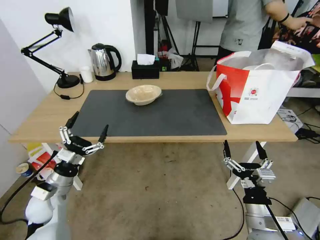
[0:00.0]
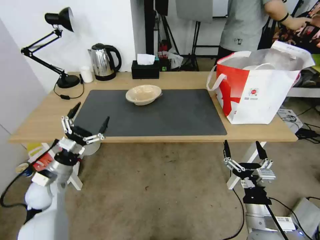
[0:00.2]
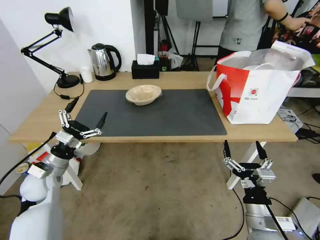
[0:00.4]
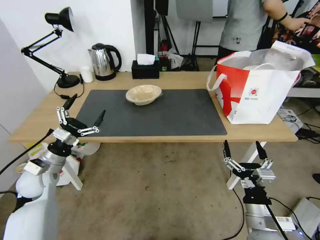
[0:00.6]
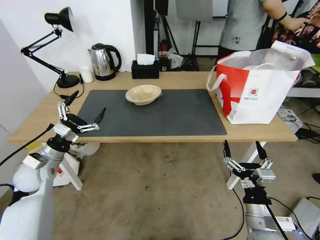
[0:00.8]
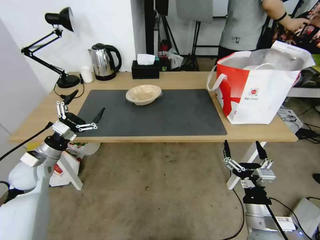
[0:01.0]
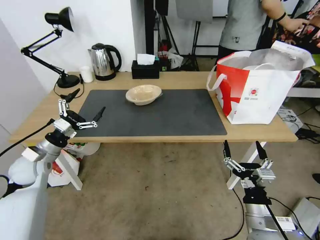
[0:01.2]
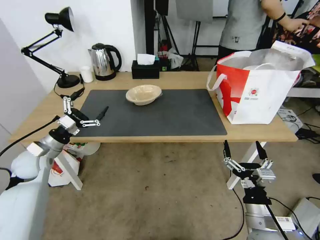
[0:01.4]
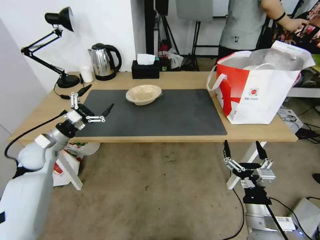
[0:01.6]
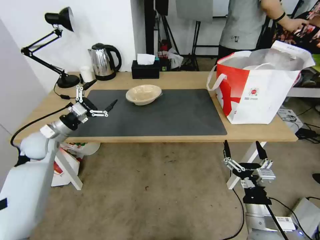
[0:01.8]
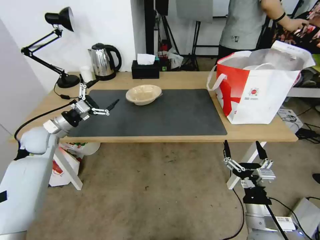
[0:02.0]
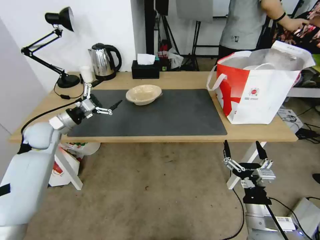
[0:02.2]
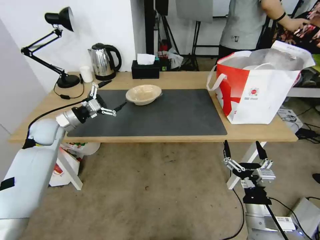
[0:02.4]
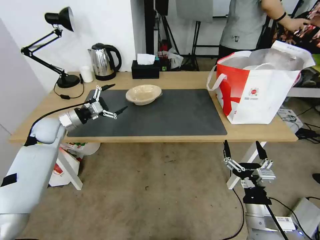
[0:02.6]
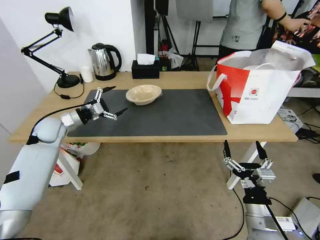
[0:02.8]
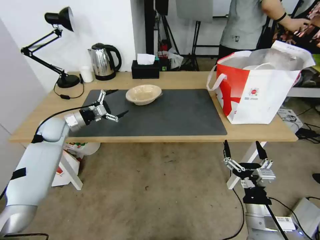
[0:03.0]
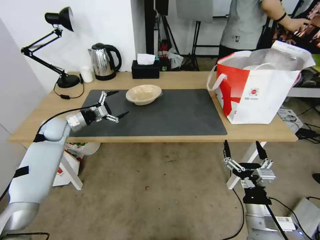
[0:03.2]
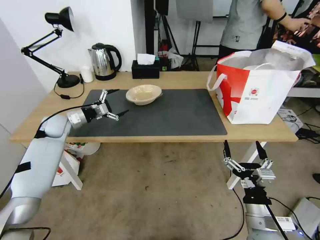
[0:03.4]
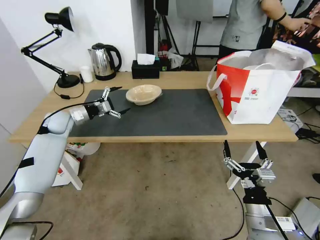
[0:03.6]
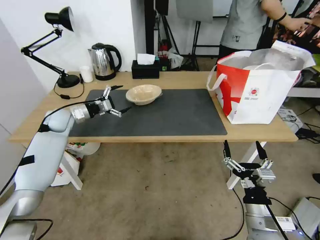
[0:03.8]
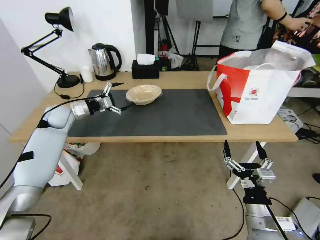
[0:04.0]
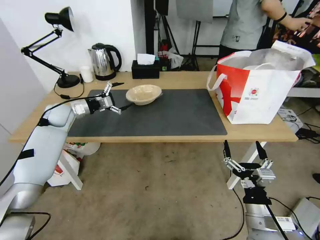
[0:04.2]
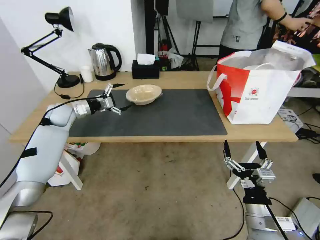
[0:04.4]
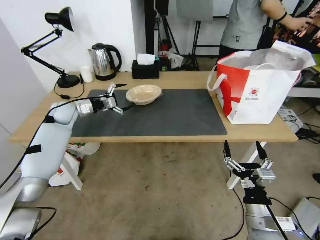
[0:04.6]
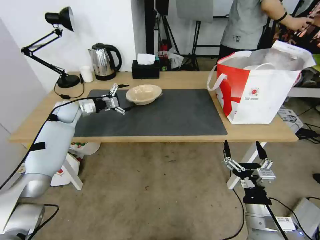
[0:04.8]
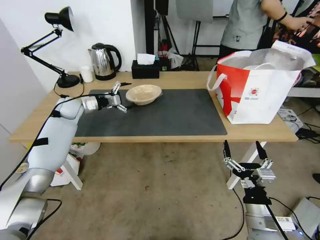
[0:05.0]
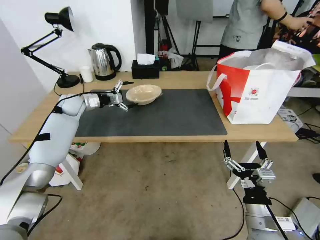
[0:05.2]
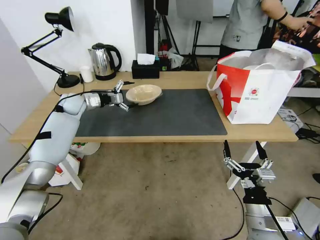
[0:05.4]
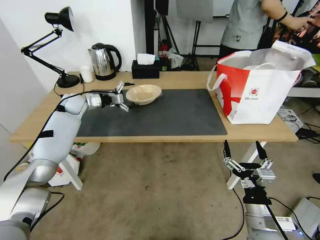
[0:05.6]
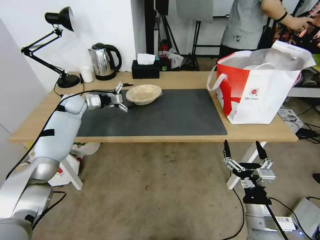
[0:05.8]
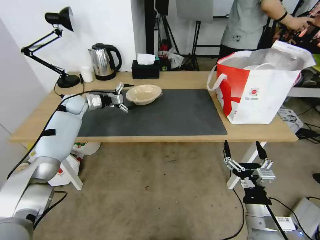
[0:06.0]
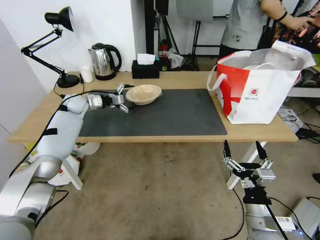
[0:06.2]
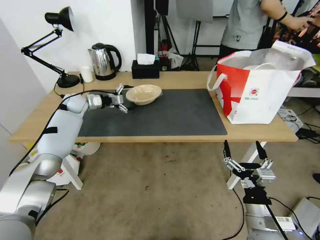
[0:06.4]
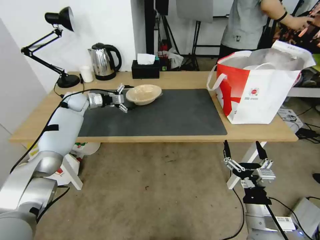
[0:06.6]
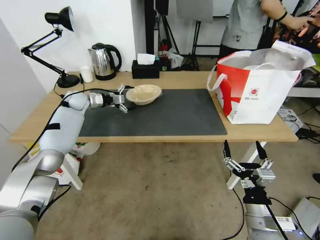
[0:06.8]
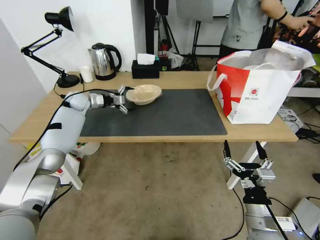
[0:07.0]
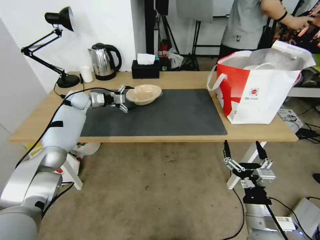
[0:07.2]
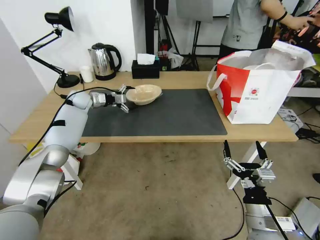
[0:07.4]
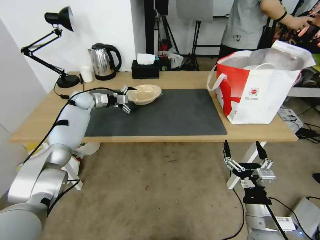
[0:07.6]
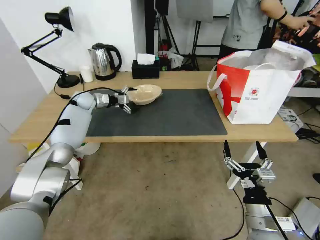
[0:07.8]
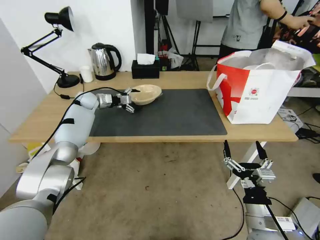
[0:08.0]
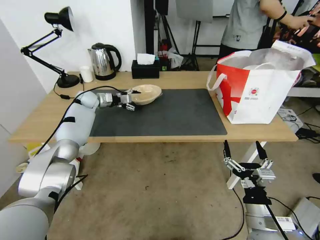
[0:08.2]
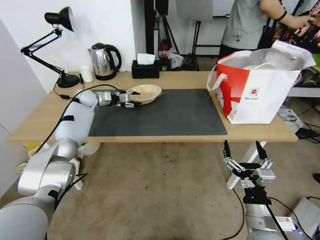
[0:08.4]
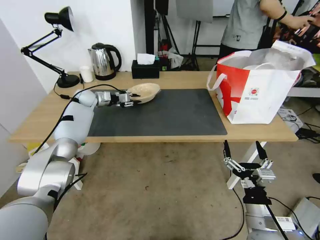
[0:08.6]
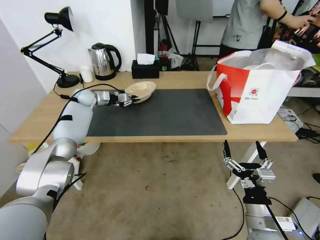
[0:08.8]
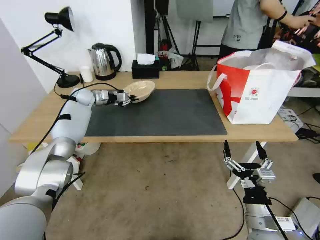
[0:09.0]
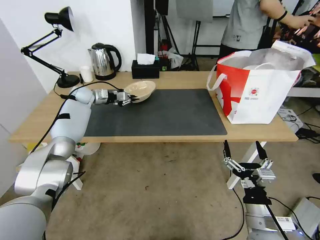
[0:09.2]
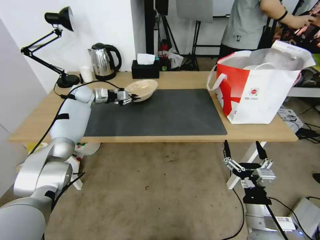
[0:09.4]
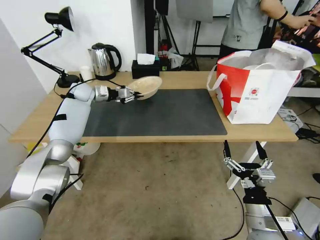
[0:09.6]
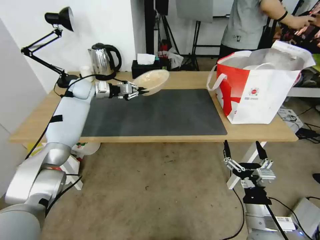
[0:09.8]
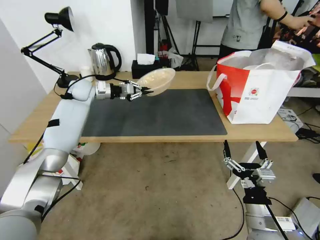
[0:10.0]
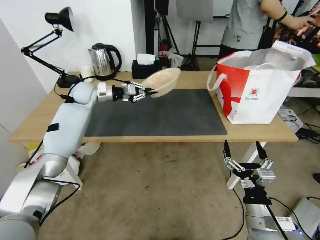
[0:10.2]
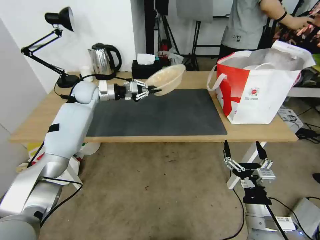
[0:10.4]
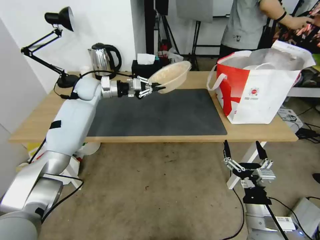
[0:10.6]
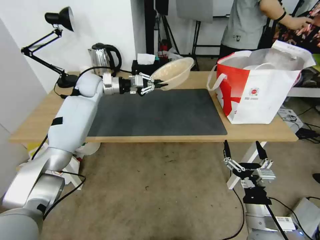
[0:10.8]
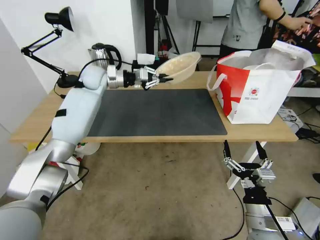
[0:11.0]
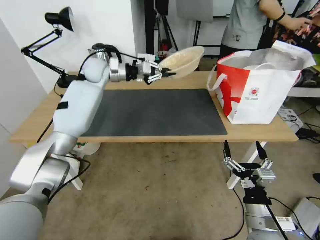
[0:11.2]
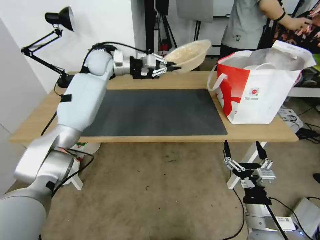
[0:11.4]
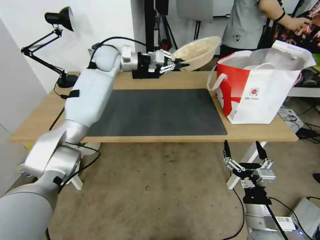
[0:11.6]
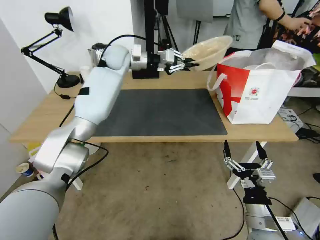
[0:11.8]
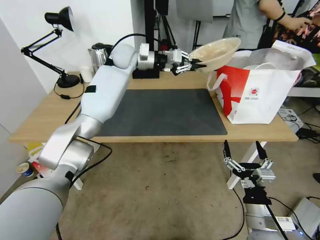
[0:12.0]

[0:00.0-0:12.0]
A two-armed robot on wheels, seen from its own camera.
Task of the whole recording: Pick up the trash from the table and place it into the takeout bag.
0:00.0 to 0:01.6: The left gripper goes about 15 cm forward and upward.
0:01.6 to 0:03.0: The left gripper goes some 10 cm forward.
0:03.0 to 0:04.4: The left gripper is displaced forward by roughly 5 cm.
0:04.4 to 0:06.0: The left gripper moves forward, roughly 5 cm.
0:06.0 to 0:07.6: There are only small adjustments of the grippers.
0:07.6 to 0:09.0: The left gripper closes up.
0:09.0 to 0:10.4: The left gripper shifts approximately 10 cm upward, to the right and backward.
0:10.4 to 0:12.0: The left gripper moves to the right and upward, about 20 cm.

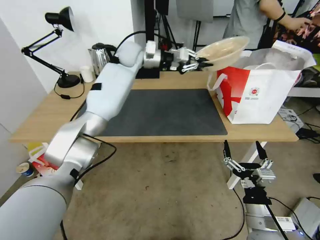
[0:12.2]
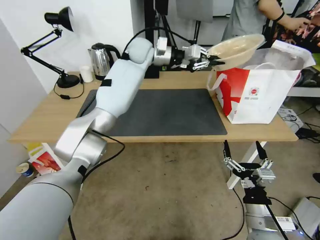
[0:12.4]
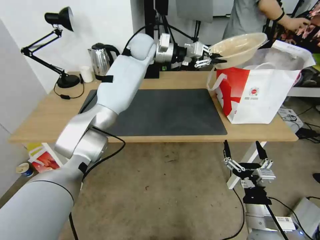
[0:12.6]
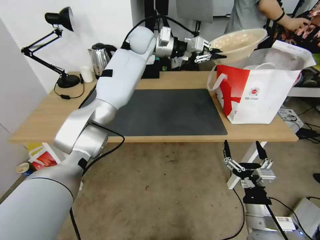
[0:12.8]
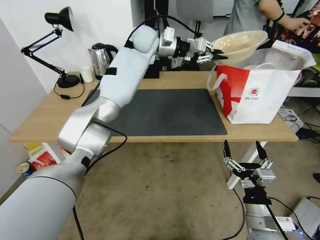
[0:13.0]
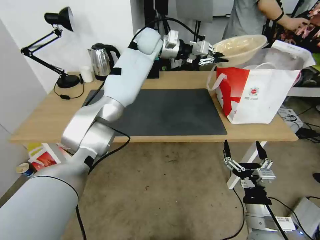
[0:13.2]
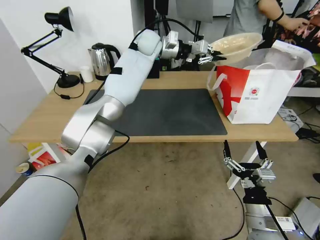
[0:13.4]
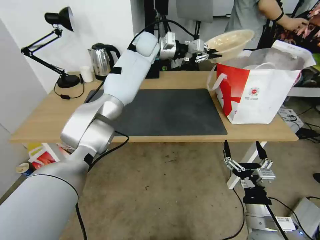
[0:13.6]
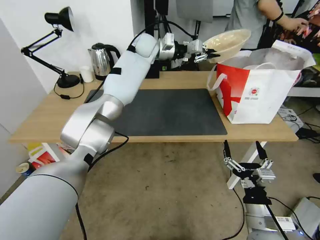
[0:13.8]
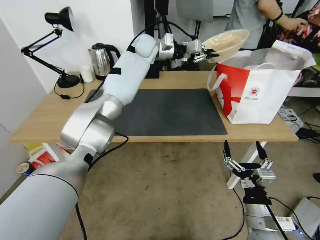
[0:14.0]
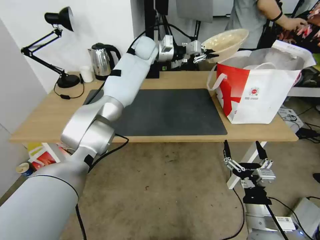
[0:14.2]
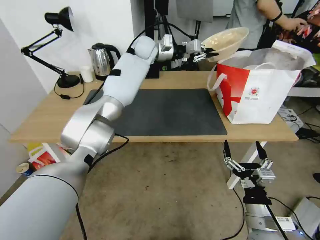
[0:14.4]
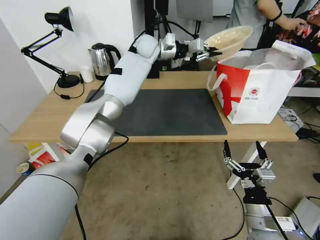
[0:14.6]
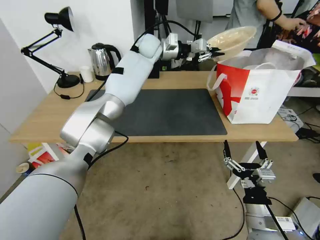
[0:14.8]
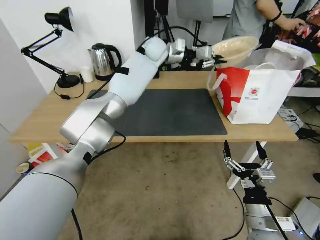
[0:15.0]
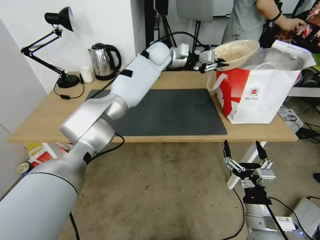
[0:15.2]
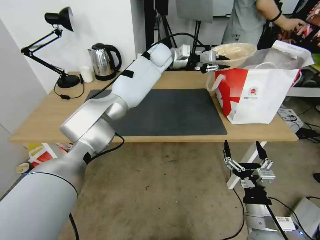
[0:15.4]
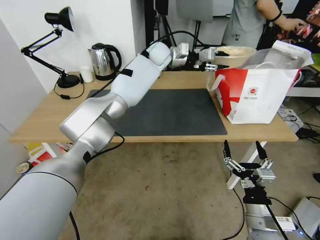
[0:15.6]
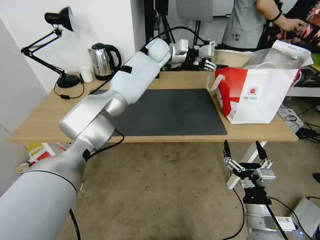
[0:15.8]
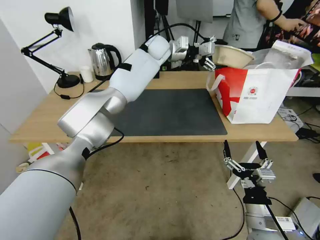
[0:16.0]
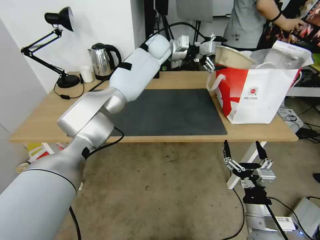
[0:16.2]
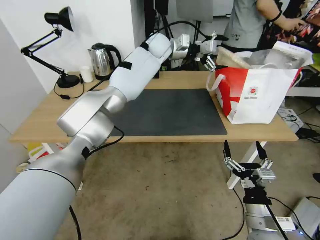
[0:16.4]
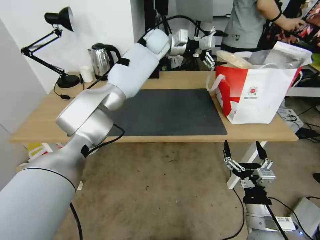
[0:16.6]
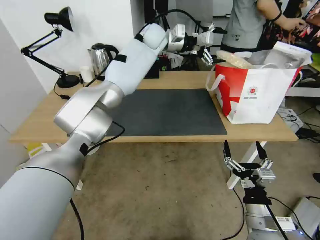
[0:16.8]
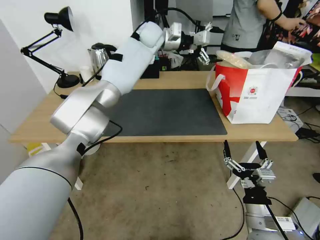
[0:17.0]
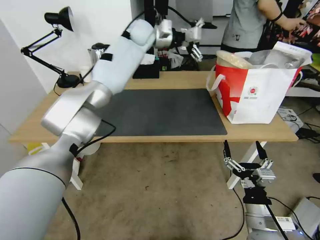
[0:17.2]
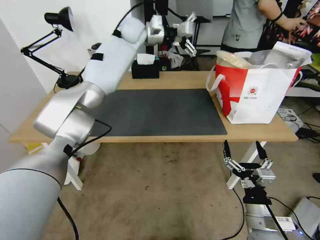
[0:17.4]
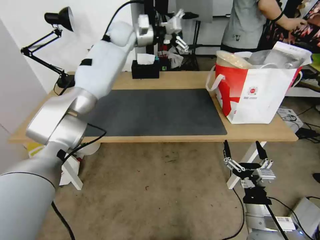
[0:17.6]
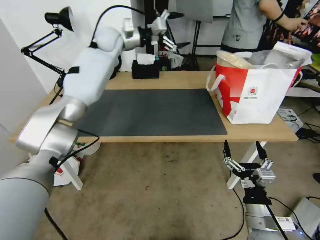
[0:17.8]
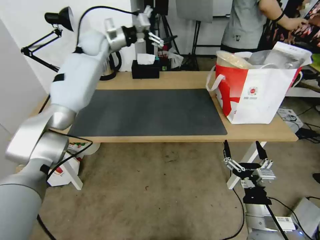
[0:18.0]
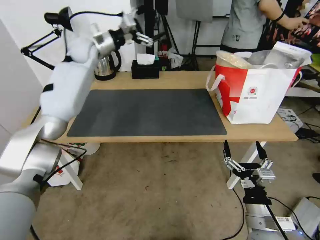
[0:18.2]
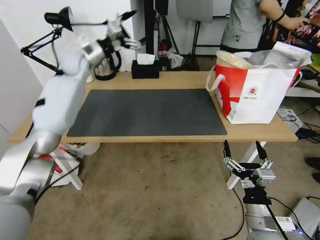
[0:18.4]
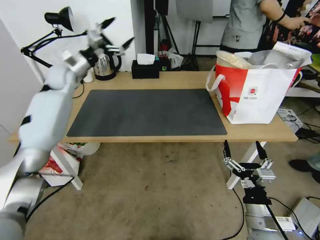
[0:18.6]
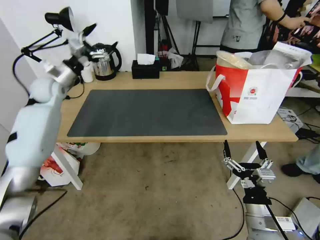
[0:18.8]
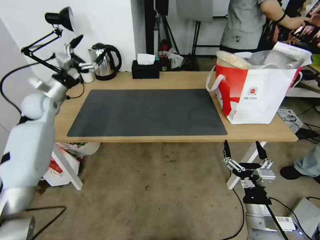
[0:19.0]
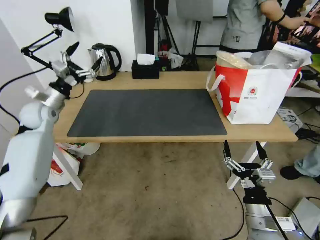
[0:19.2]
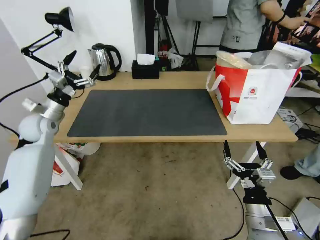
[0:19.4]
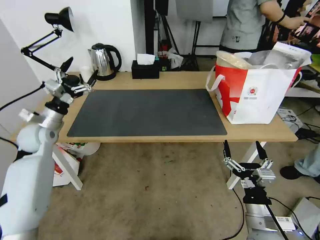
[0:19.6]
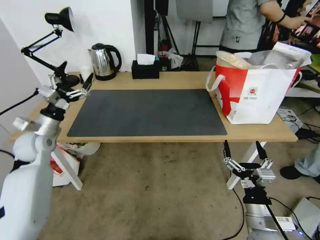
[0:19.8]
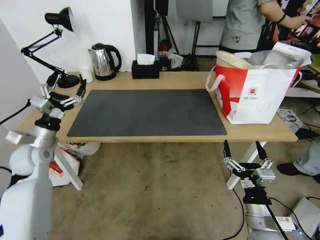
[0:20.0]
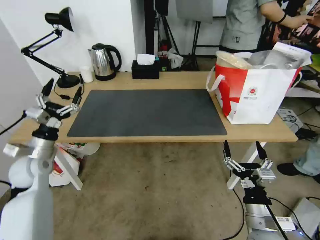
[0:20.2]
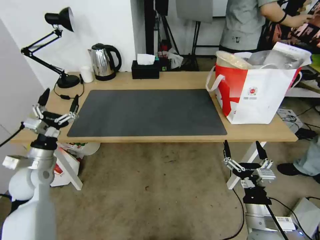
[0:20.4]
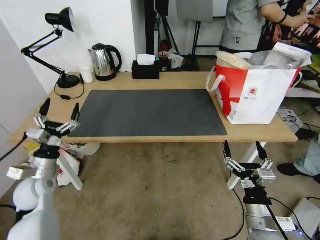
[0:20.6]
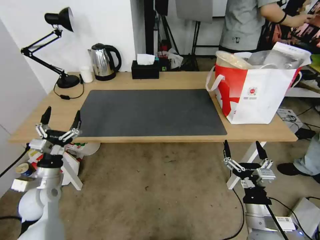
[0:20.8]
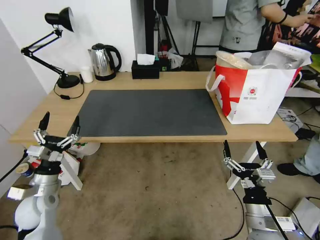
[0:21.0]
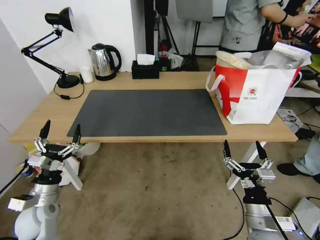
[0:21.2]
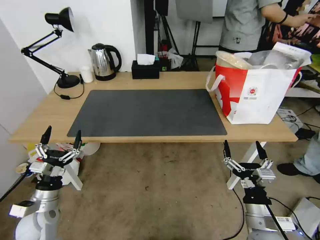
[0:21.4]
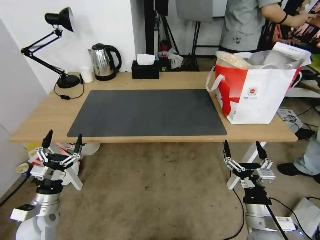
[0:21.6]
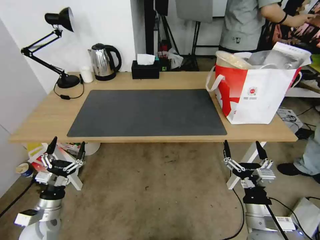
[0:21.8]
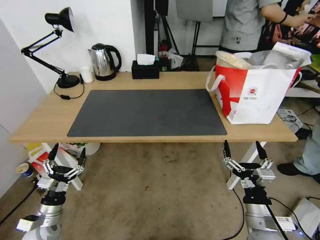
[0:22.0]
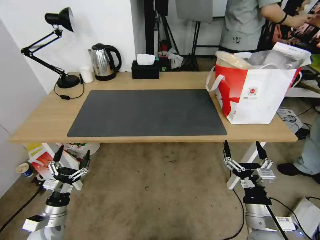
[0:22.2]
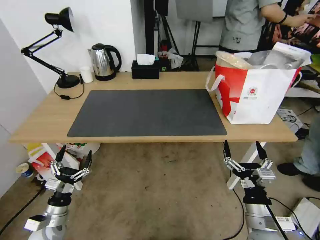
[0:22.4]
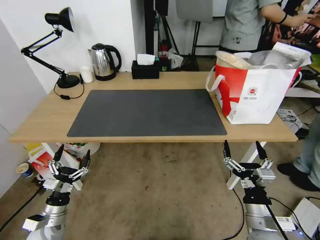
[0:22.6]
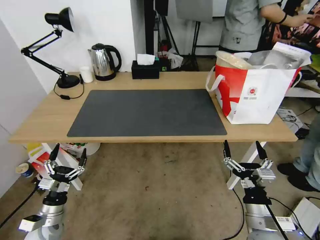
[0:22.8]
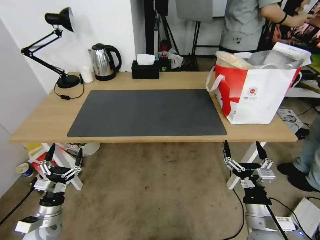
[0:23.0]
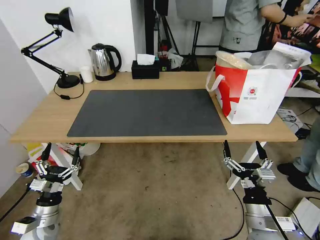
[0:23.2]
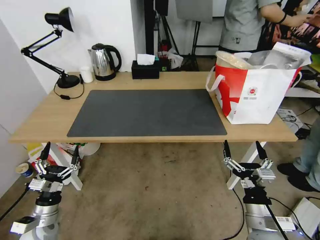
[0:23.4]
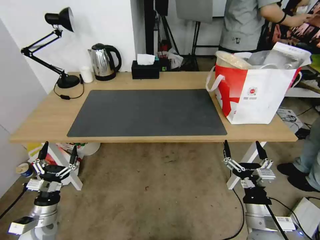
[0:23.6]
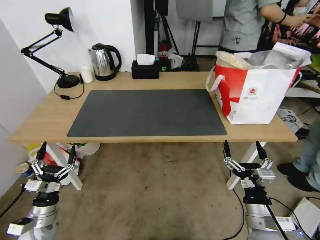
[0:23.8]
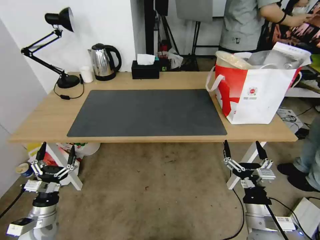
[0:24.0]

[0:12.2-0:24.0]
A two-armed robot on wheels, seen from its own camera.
Task of the whole recording: Pick up the trash from the table and place it into the takeout bag.
0:12.2 to 0:13.6: The left gripper changes place by approximately 5 cm.
0:13.6 to 0:15.2: The left gripper changes place by about 5 cm.
0:15.2 to 0:16.6: The left gripper opens its fingers.
0:16.6 to 0:18.2: The left gripper moves to the left, approximately 25 cm.
0:18.2 to 0:19.6: The left gripper travels backward, downward and to the left by approximately 30 cm.
0:19.6 to 0:21.0: The left gripper heads backward and downward, covering approximately 20 cm.
0:21.0 to 0:22.6: The left gripper moves downward and backward, roughly 10 cm.
0:22.6 to 0:24.0: The grippers make only small movements.
